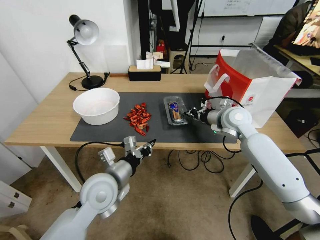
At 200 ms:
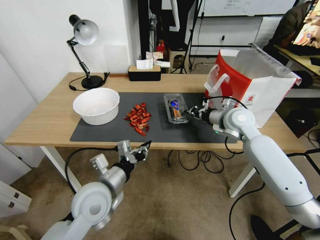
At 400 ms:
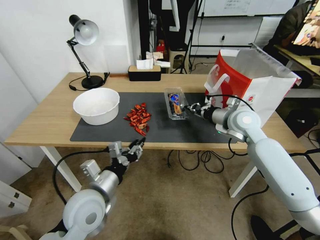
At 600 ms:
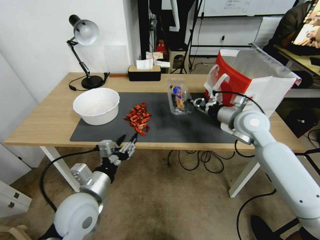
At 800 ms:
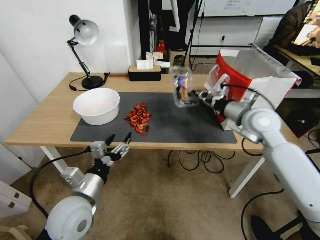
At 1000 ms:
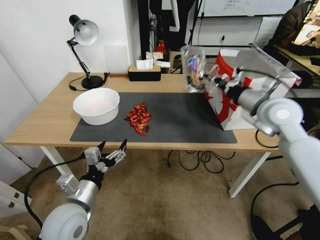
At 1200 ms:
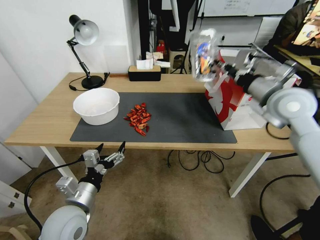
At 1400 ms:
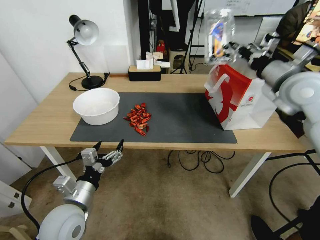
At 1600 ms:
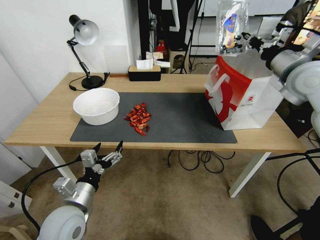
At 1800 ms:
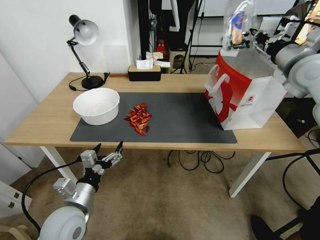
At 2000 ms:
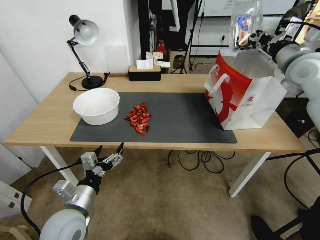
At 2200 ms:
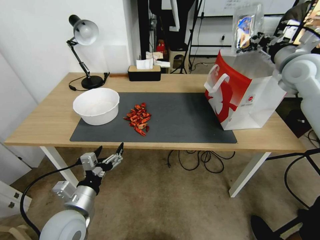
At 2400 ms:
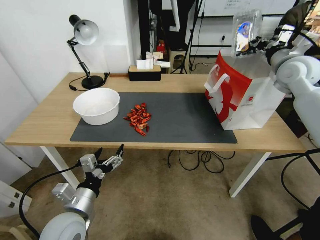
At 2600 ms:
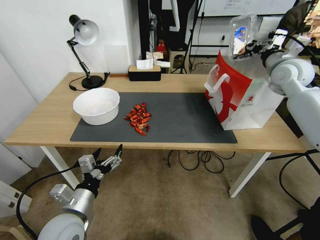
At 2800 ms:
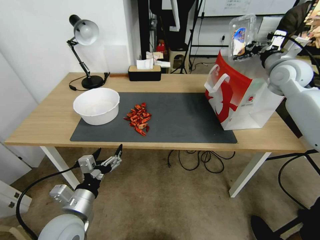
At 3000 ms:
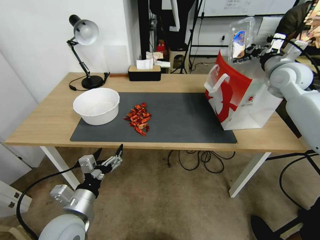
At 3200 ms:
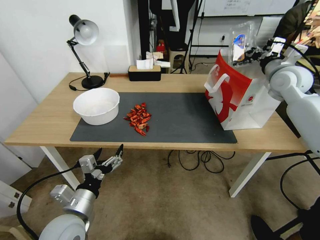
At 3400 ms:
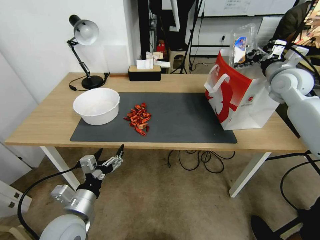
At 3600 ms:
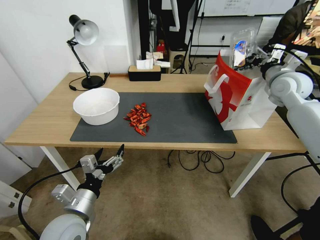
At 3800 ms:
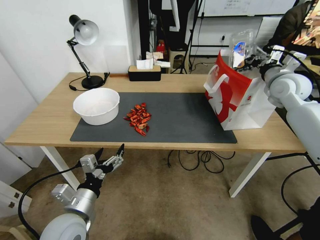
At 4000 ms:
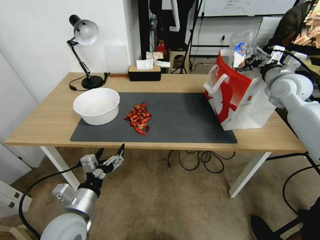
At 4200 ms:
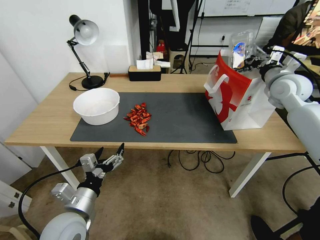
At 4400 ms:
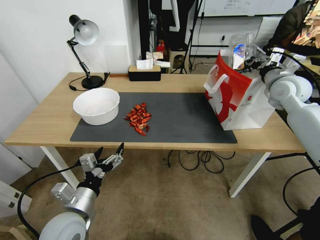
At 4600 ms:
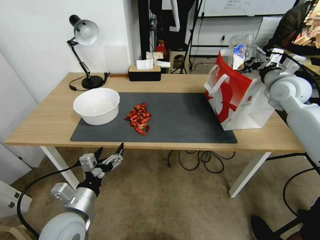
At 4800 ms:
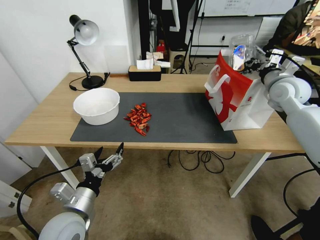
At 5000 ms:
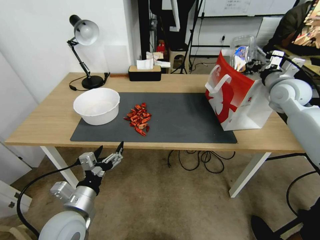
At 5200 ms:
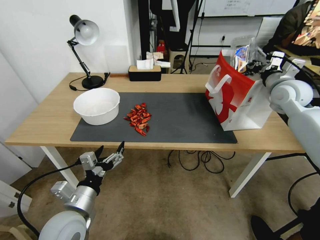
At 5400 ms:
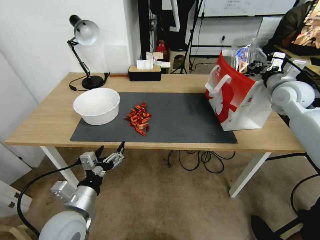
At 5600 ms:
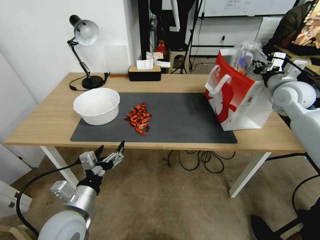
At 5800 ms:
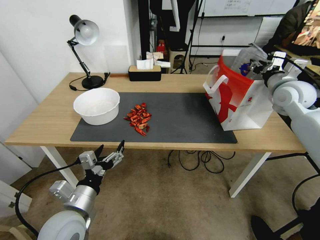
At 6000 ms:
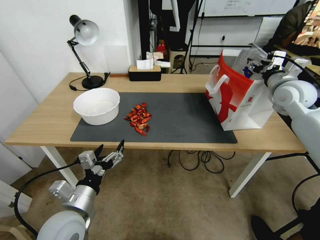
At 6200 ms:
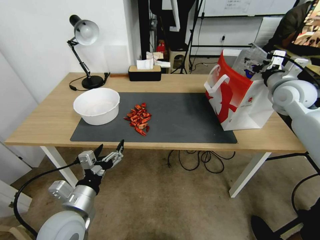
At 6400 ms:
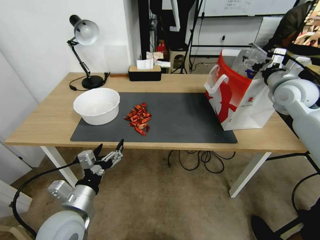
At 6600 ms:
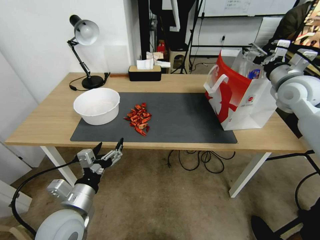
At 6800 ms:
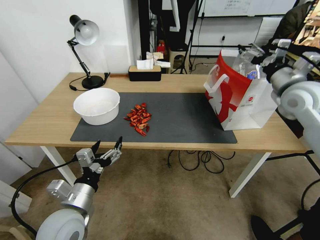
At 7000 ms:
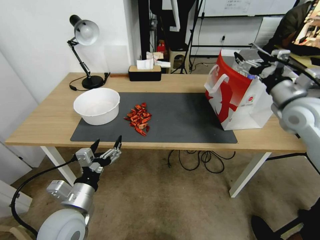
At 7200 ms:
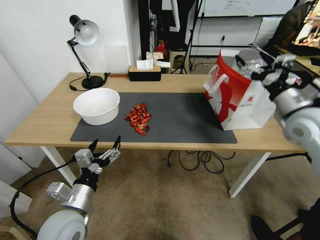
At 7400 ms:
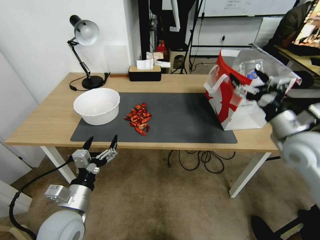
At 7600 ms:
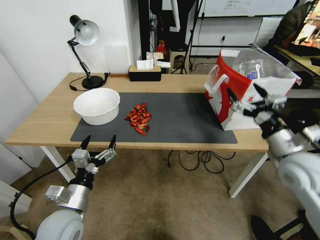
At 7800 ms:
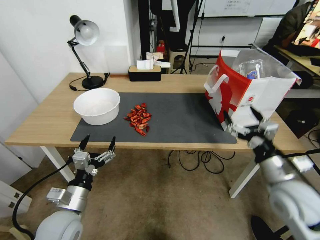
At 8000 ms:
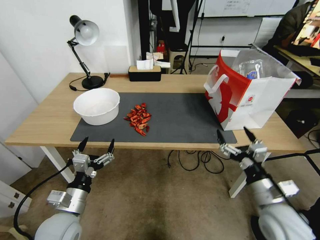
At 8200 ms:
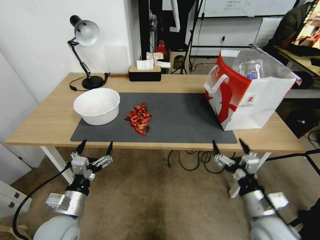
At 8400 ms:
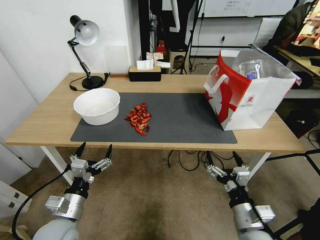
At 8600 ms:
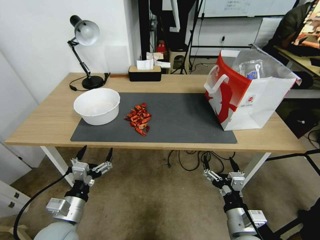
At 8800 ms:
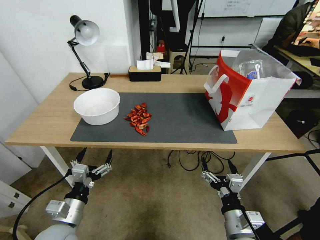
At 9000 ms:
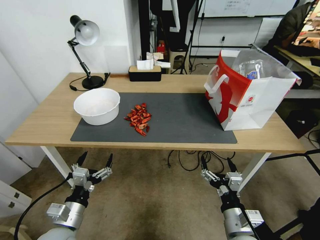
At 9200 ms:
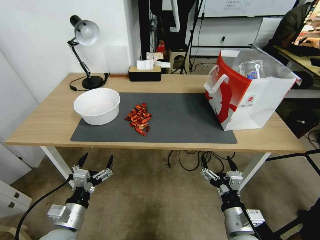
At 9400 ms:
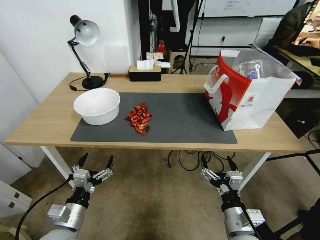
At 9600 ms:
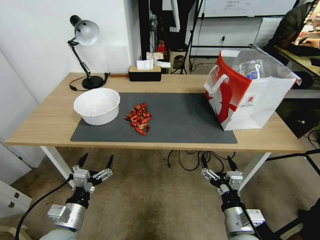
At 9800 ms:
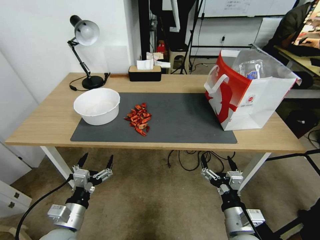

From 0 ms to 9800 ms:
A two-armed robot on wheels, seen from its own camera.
From 0 ms to 1400 ms: The left gripper heads to the left and backward, covering approximately 10 cm, and opens its fingers; the right gripper moves upward and to the right, approximately 20 cm.
From 1400 ms to 2800 ms: The right gripper heads forward and to the right, covering about 15 cm.
From 2800 ms to 4200 ms: The grippers stay close to where they were, moving slightly.
From 4200 ms to 5600 ms: There are only small adjustments of the grippers.
From 5600 ms to 7000 ms: The right gripper is displaced backward by some 10 cm, and opens its fingers.
From 7000 ms to 8400 ms: The left gripper heads downward, covering roughly 5 cm. The right gripper moves backward, downward and to the left, roughly 35 cm.
From 8400 ms to 9800 ms: The grippers move only a little.
